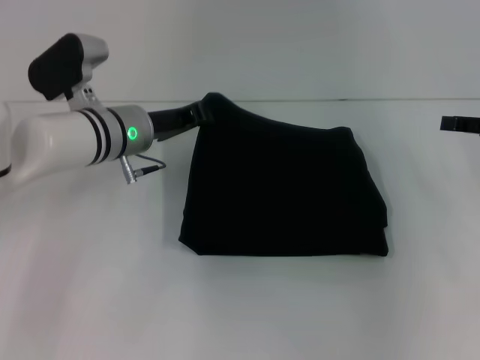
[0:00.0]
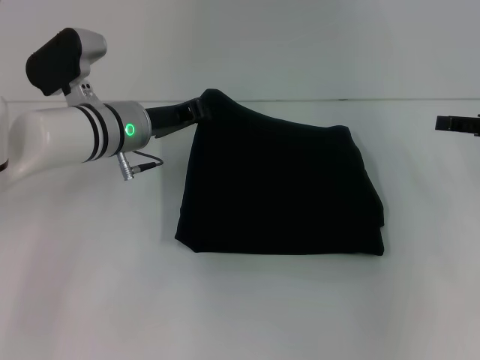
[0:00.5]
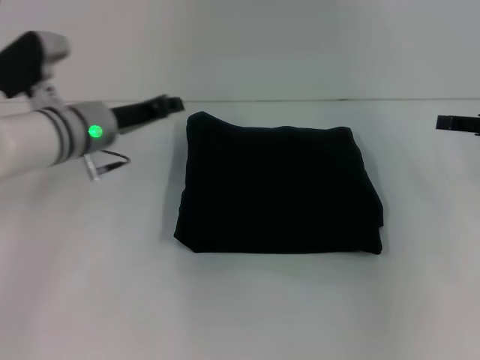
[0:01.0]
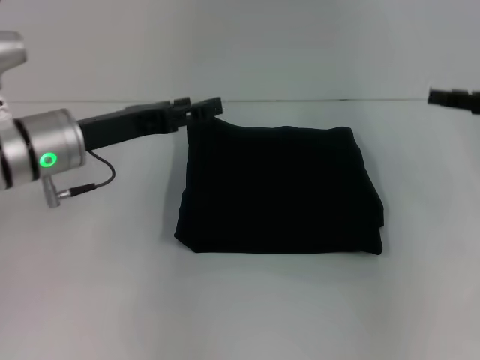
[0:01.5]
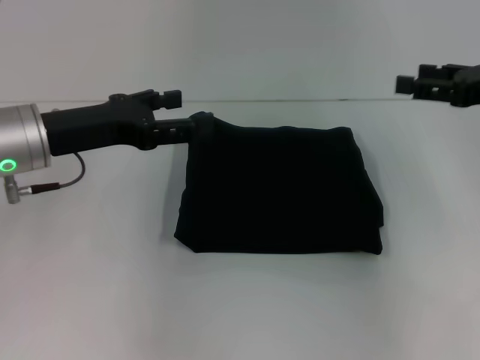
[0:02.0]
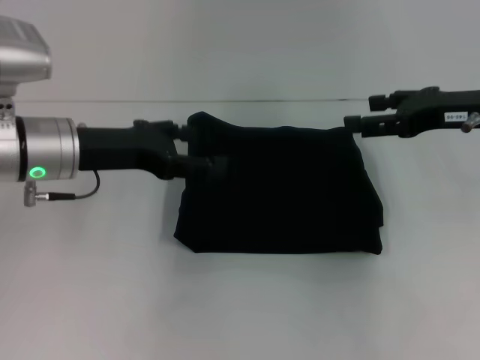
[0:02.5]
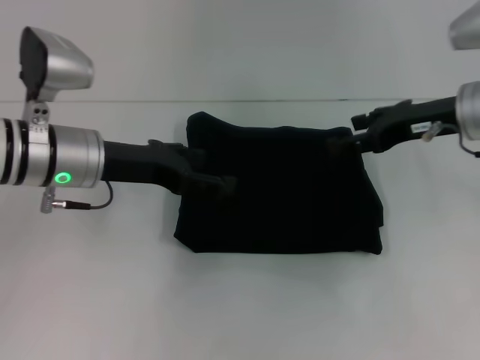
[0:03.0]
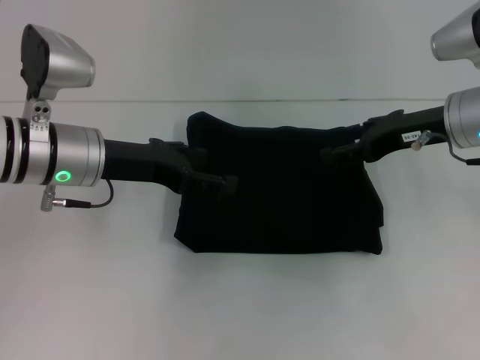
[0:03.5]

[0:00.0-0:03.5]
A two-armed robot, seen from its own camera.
0:00.0 to 0:02.0: The left gripper heads backward, to the left and upward, covering some 15 cm, and opens; the right gripper changes place by about 5 cm.
0:02.0 to 0:03.5: The right gripper moves to the left, approximately 10 cm.
